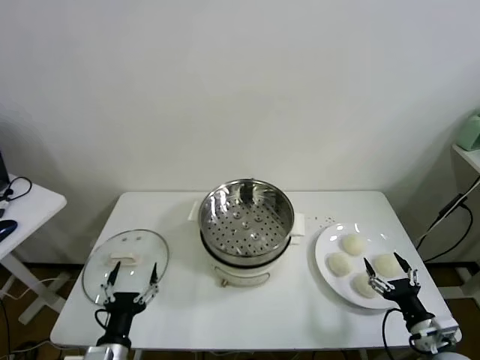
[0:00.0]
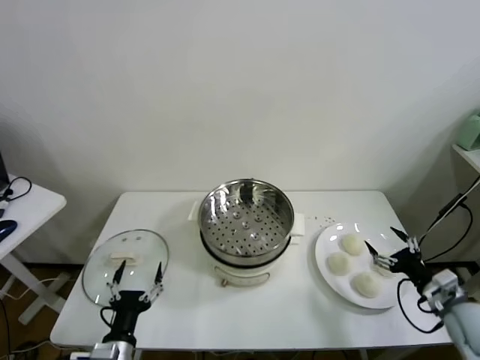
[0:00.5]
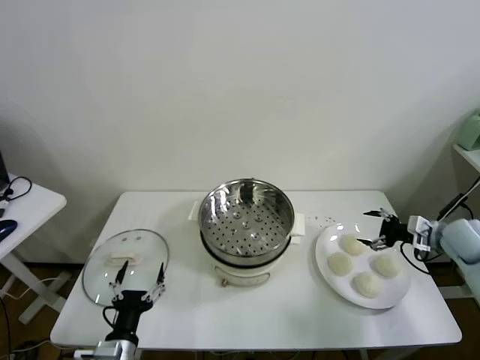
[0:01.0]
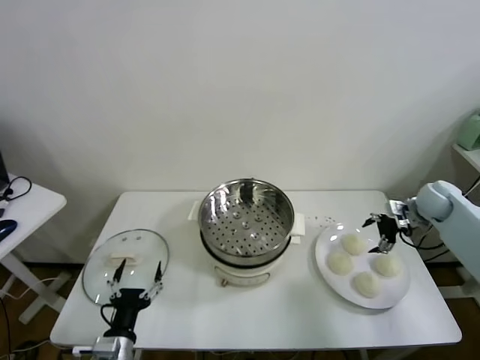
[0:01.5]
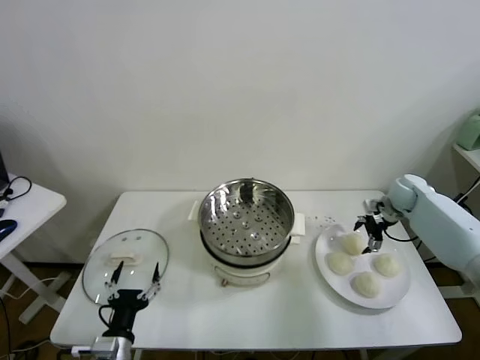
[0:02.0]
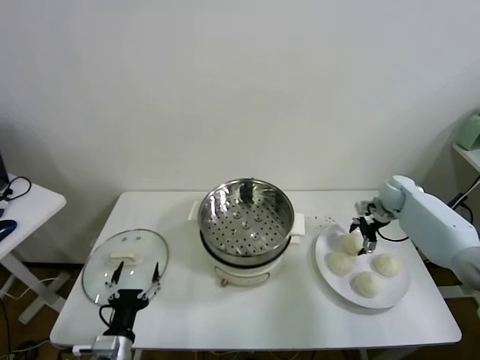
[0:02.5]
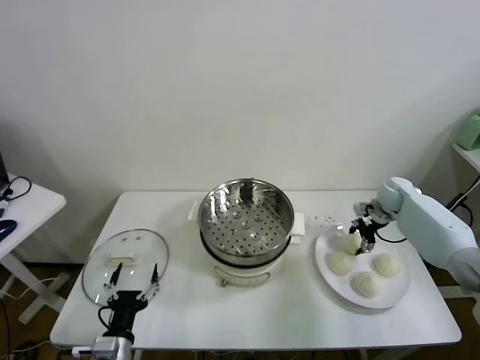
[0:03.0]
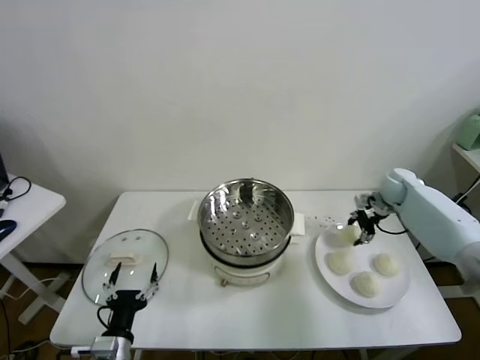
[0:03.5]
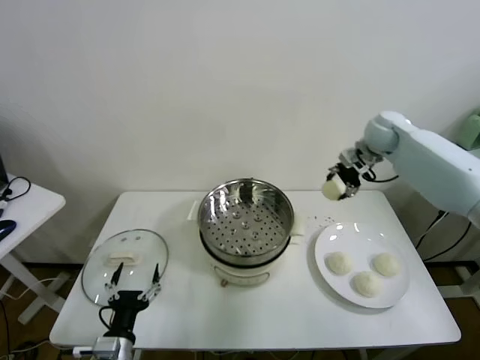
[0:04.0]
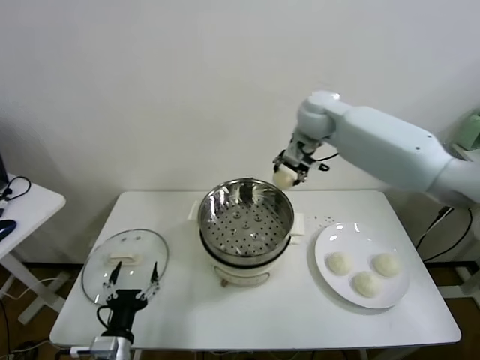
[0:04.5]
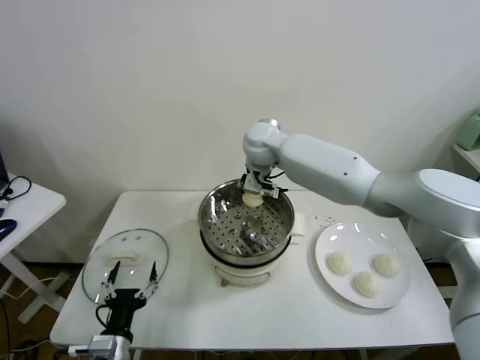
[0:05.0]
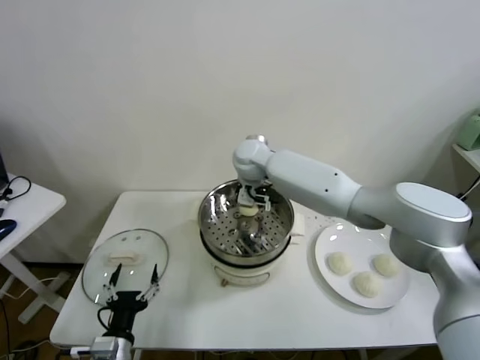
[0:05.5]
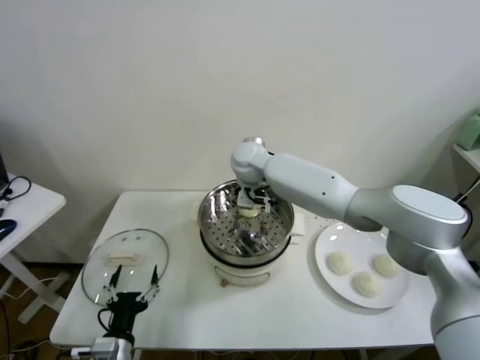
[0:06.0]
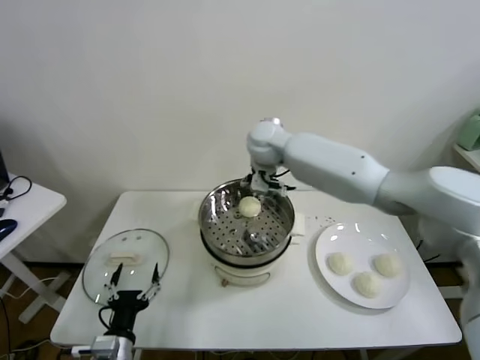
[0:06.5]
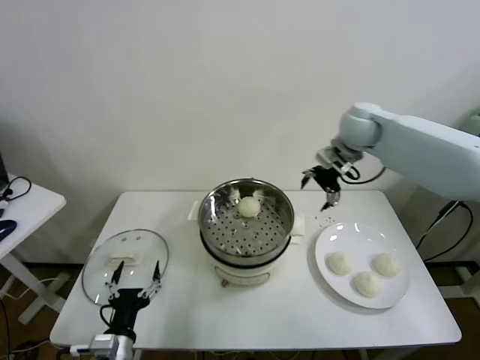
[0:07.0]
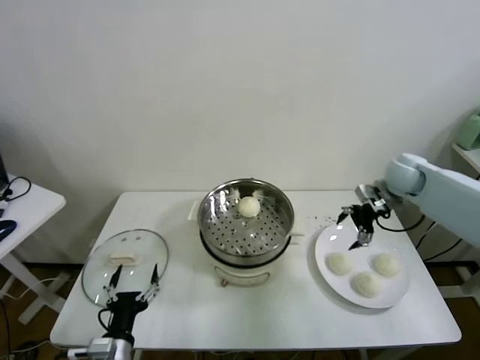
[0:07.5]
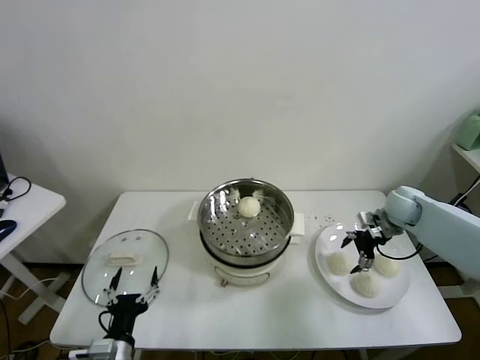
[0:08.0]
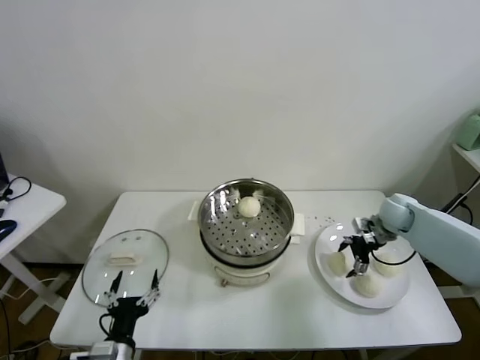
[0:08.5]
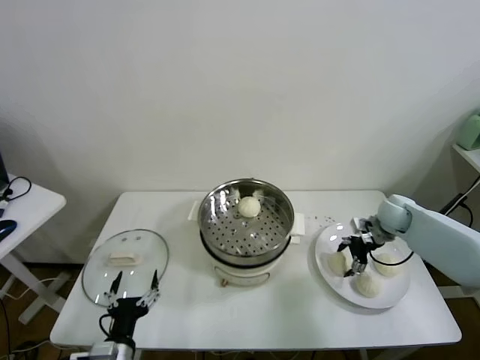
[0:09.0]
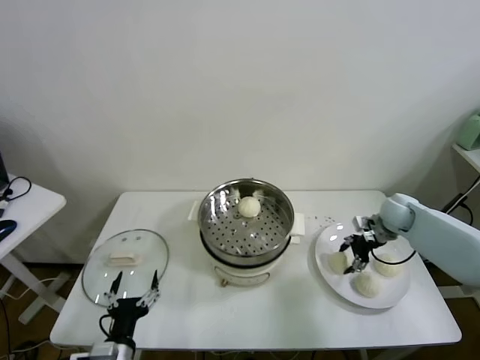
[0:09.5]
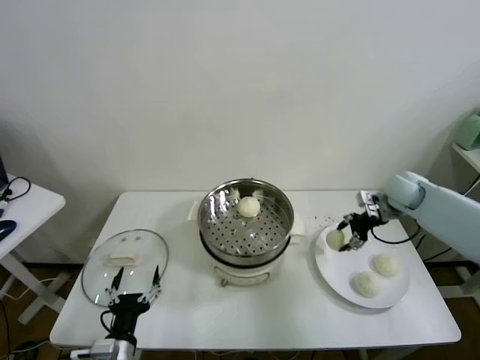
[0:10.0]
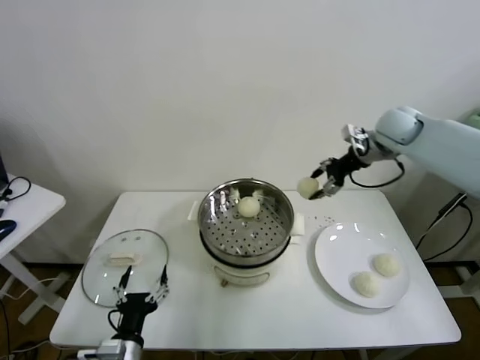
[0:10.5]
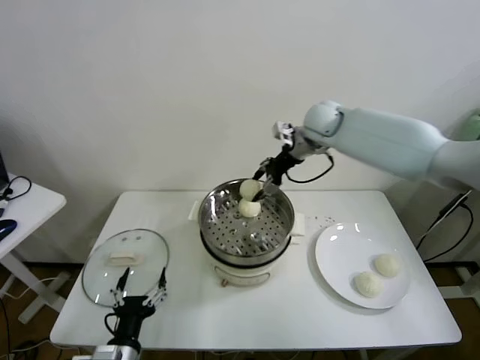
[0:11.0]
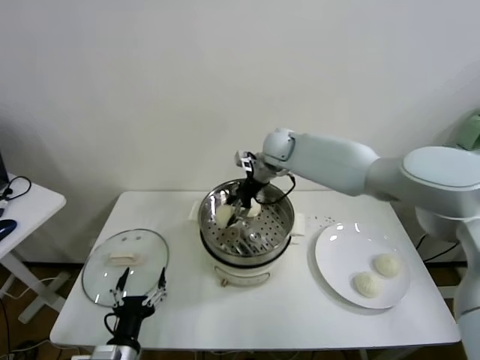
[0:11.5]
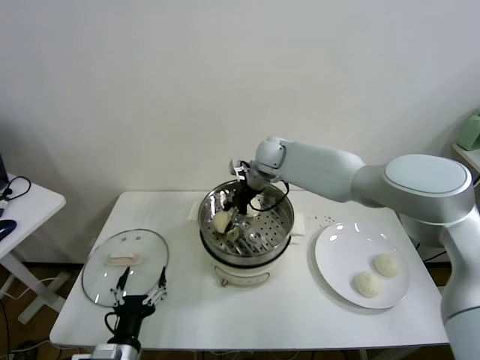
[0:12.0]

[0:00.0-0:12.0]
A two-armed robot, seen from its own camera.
Task of the whole recording: take steamed baozi put them in steamer.
Step, 0:00.0 to 0:03.0: Grasp the baozi in the plate with right gripper.
Step, 0:03.5 to 0:06.0: Place the baozi on the steamer with right gripper.
Step, 0:06.5 to 0:09.0: Grasp the baozi in the plate with right gripper.
0:02.0 to 0:04.0: The right gripper shifts about 25 cm upward and to the left, and closes its fingers.
0:04.0 to 0:06.0: The right gripper shifts roughly 30 cm to the left, and opens.
0:06.0 to 0:08.0: The right gripper shifts about 40 cm to the right.
0:08.0 to 0:10.0: The right gripper travels upward by approximately 5 cm, and closes up.
0:10.0 to 0:12.0: The right gripper travels to the left by some 35 cm.

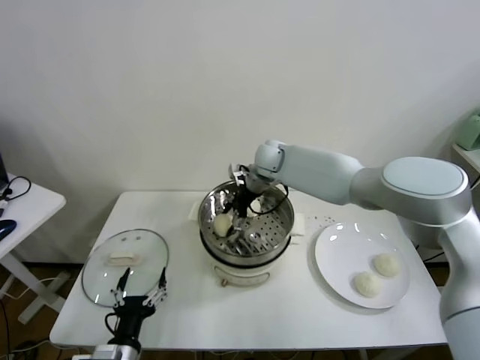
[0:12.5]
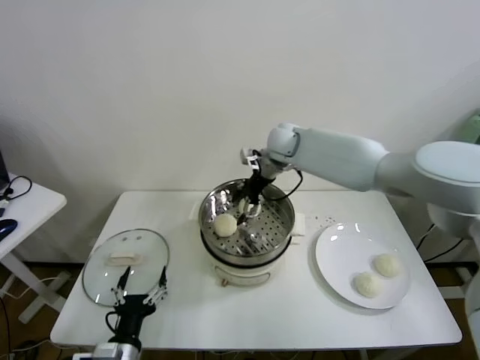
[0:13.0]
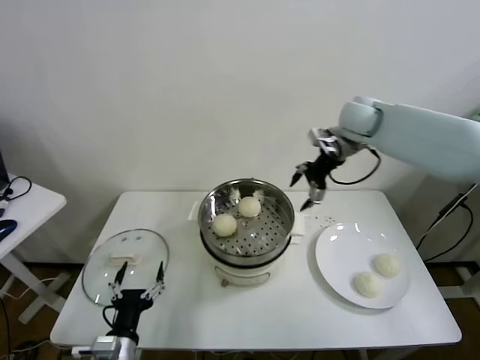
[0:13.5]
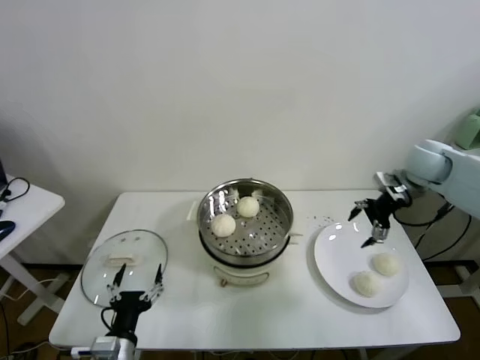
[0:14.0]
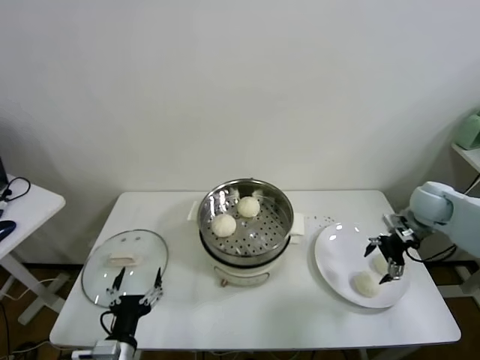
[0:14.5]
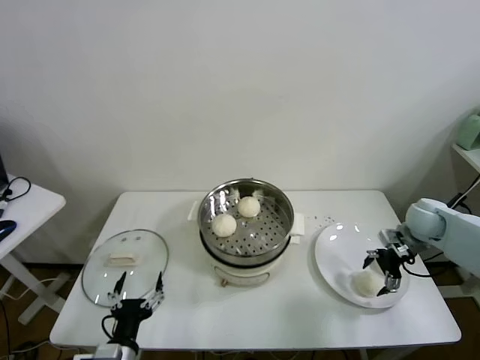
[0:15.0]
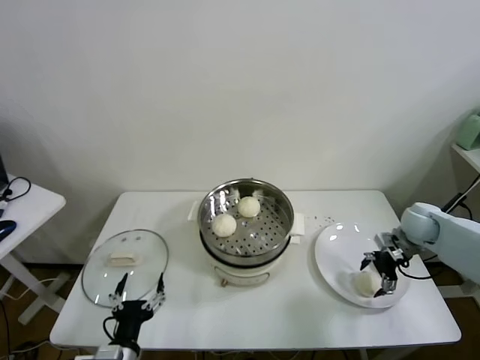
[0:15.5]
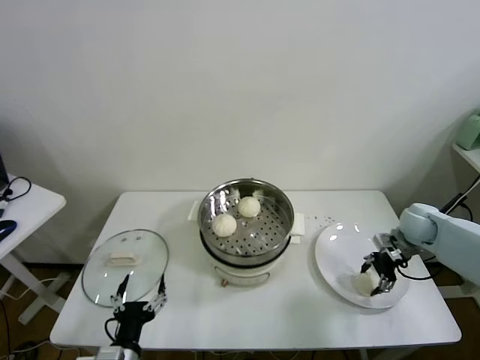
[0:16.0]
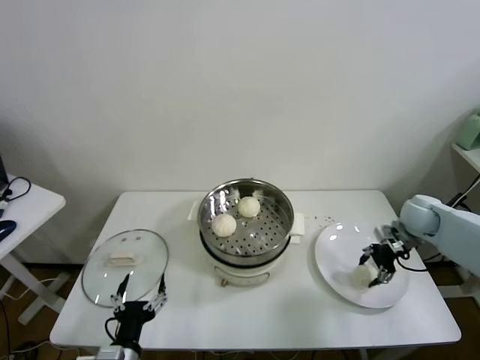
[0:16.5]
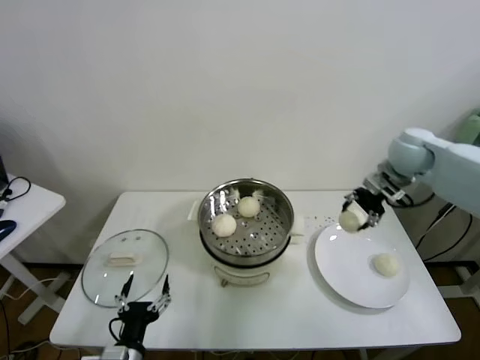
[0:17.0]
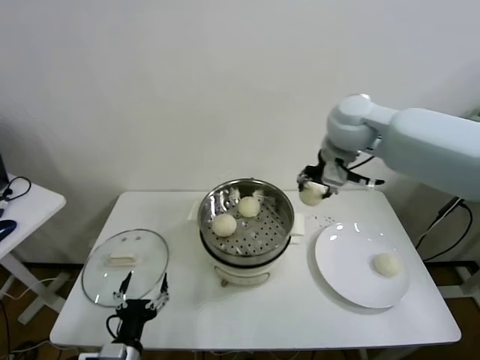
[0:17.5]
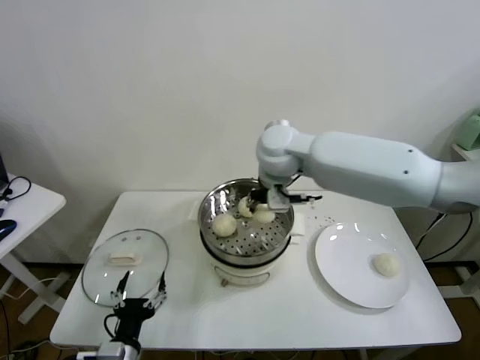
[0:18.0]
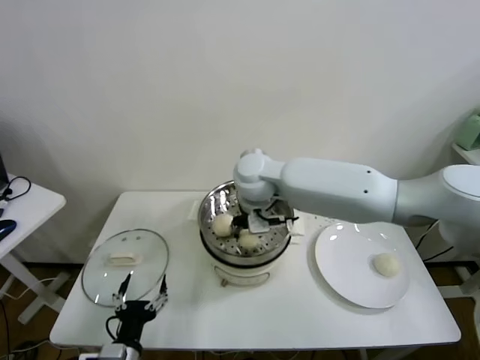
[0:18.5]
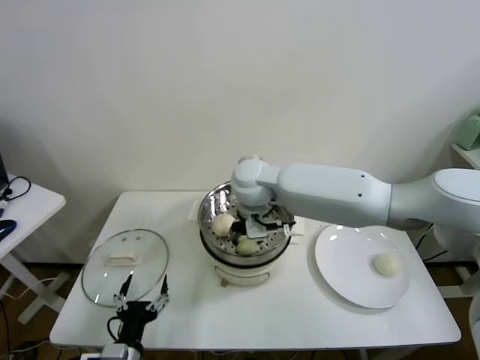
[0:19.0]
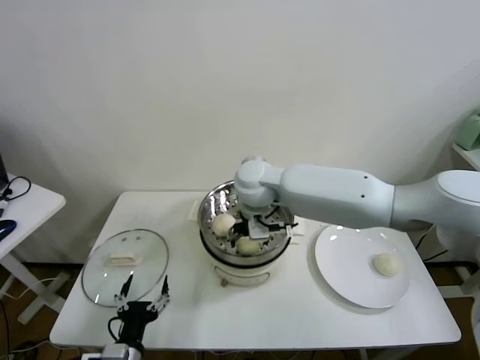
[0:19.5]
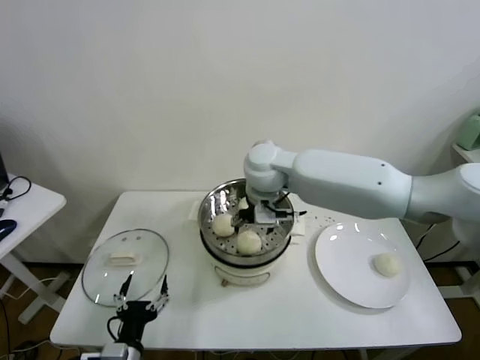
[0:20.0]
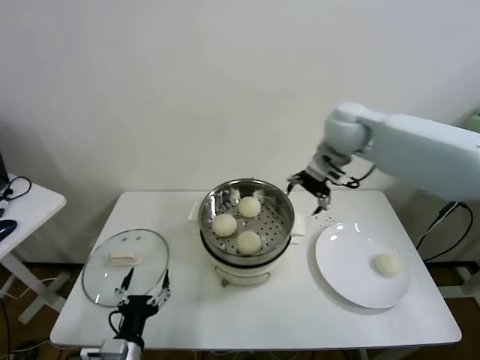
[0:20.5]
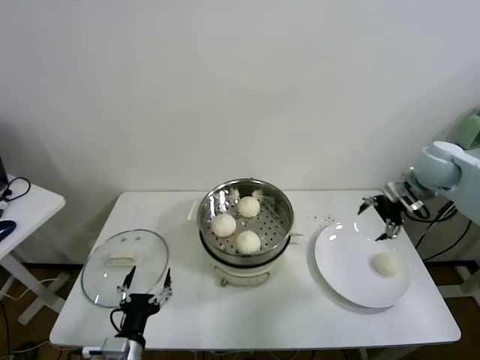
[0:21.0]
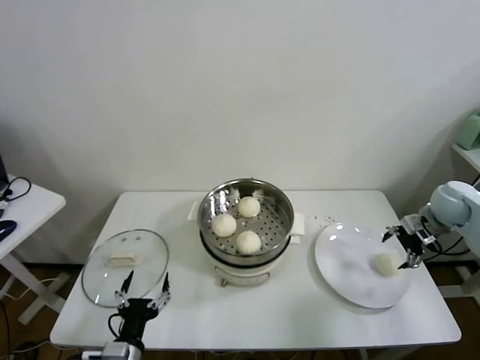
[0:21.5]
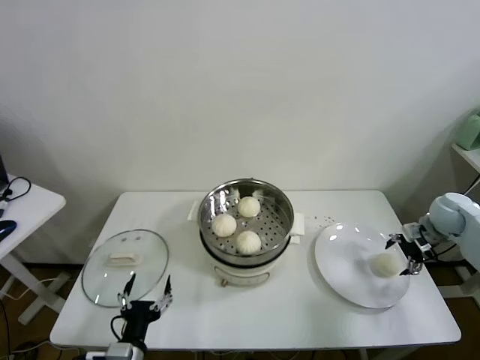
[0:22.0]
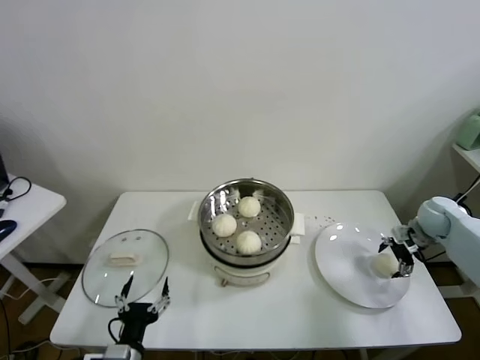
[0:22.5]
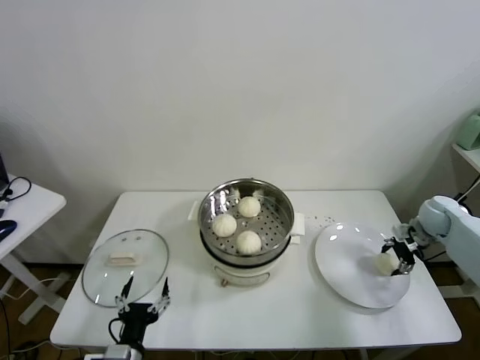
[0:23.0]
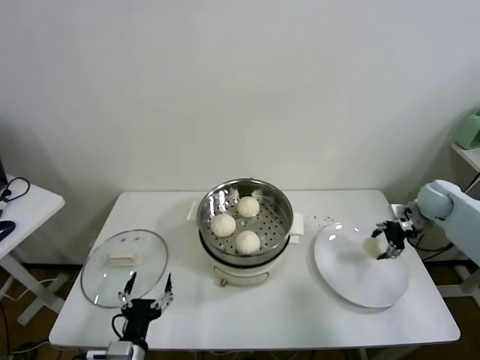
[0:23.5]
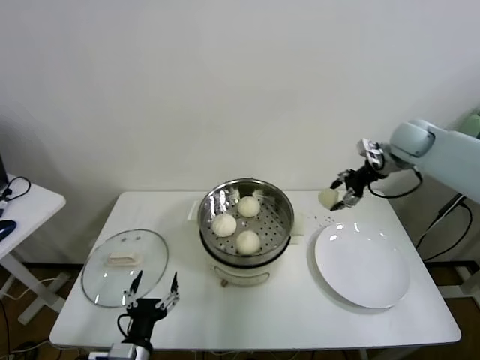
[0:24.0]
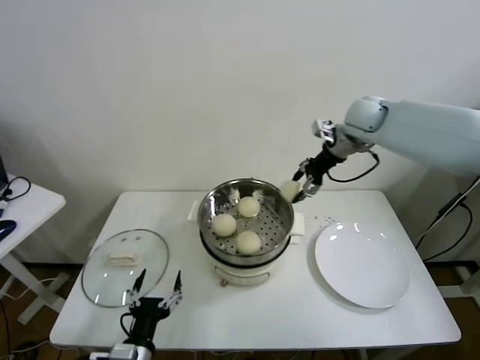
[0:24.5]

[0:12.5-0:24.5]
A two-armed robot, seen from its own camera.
Task of the whole recording: take steamed baozi put them in steamer.
Step, 0:13.0 to 0:16.0: Grasp the baozi in the plate with right gripper.
Step, 0:16.5 to 0:19.5: Place the baozi on the steamer with right gripper.
Step, 0:20.0 to 0:23.0: Grasp the baozi in the plate with right gripper.
0:12.5 to 0:14.5: The right gripper heads to the right, covering some 35 cm.
0:14.5 to 0:16.5: The right gripper closes.
0:16.5 to 0:18.5: The right gripper heads to the left, covering some 40 cm.
0:18.5 to 0:20.5: The right gripper moves to the right and upward, roughly 20 cm, and opens.
0:20.5 to 0:22.5: The right gripper heads to the right and downward, covering roughly 35 cm.
0:22.5 to 0:24.5: The right gripper shifts some 35 cm upward, to the left and forward, and closes.

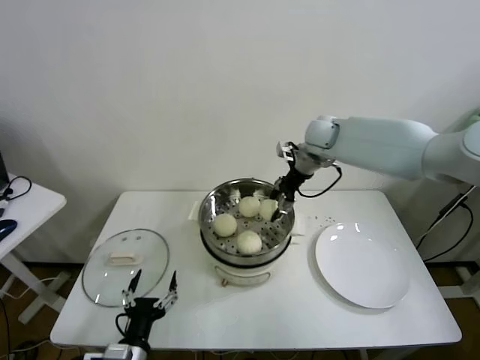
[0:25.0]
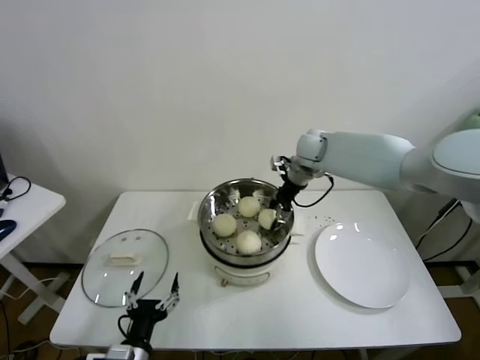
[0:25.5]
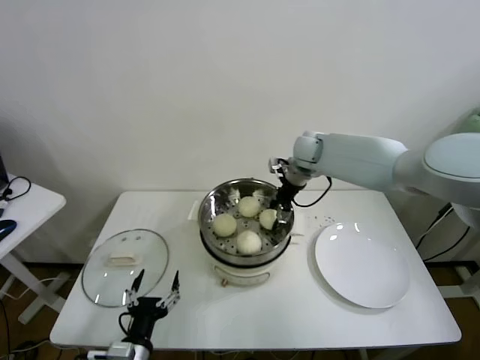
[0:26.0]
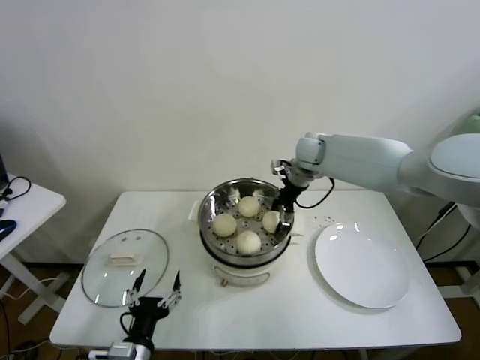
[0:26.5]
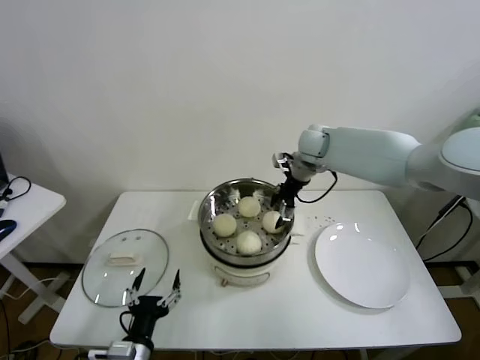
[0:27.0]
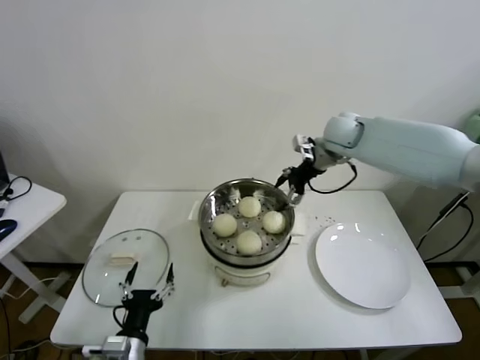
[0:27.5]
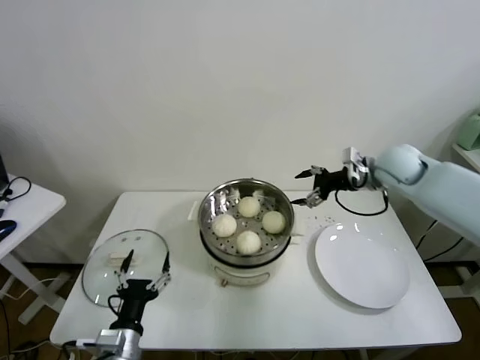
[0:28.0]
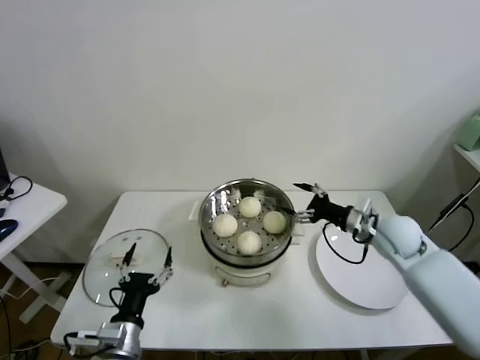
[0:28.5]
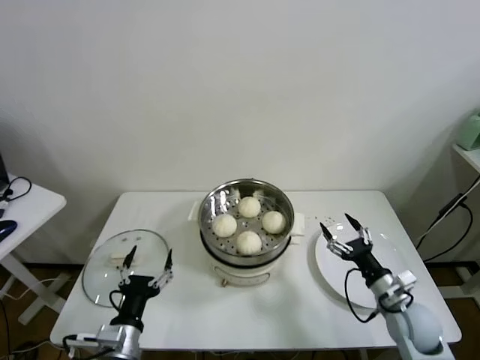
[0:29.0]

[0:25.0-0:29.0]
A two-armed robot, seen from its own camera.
Task of the whole recording: take steamed baozi put them in steamer.
Step, 0:25.0 to 0:27.0: Place the baozi on the steamer with right gripper.
0:25.0 to 0:27.0: The right gripper opens up.
0:27.0 to 0:29.0: The right gripper travels backward, downward and to the right by approximately 40 cm.
